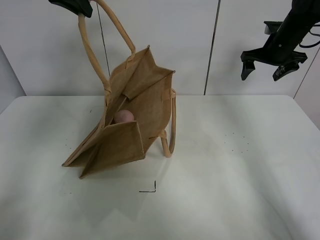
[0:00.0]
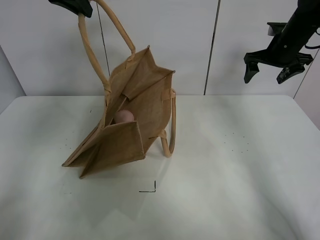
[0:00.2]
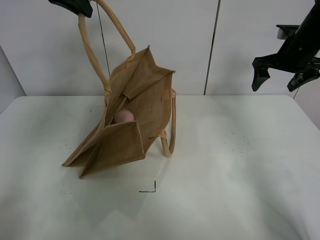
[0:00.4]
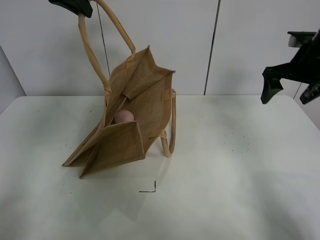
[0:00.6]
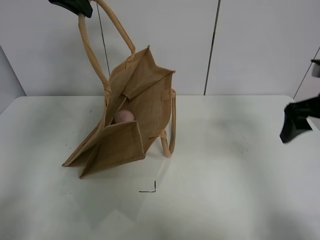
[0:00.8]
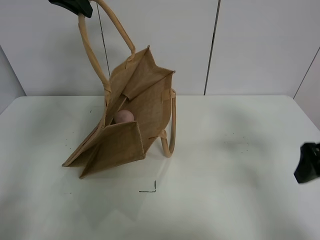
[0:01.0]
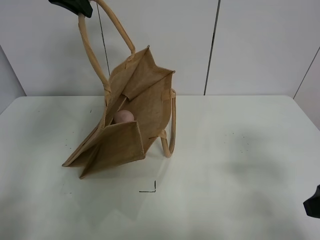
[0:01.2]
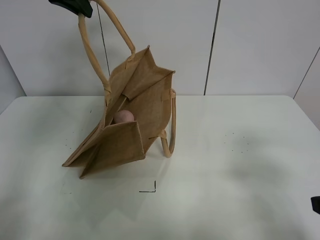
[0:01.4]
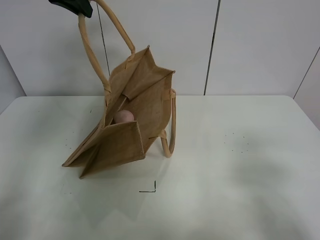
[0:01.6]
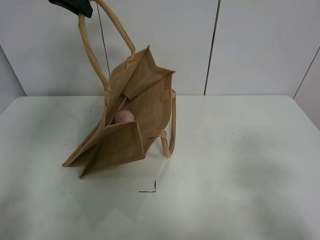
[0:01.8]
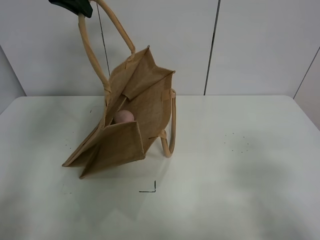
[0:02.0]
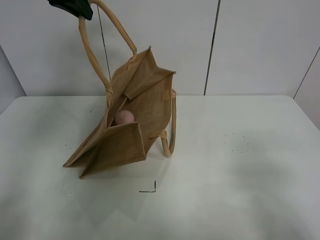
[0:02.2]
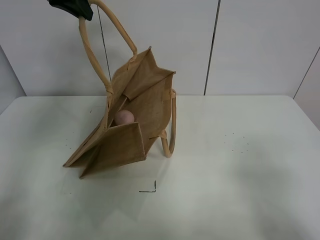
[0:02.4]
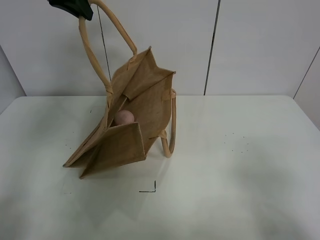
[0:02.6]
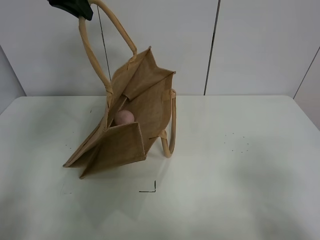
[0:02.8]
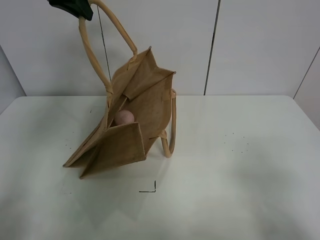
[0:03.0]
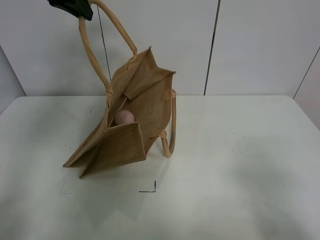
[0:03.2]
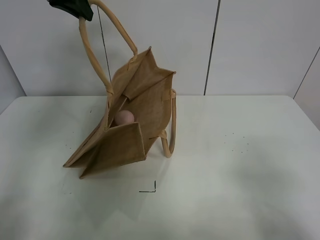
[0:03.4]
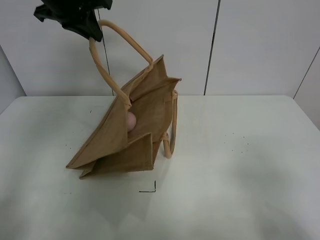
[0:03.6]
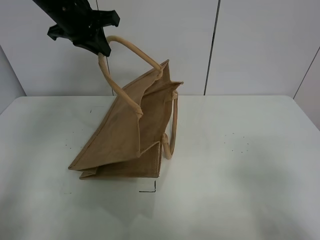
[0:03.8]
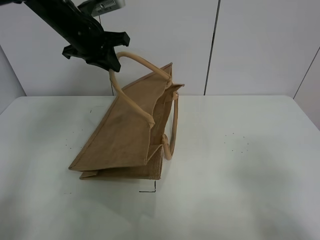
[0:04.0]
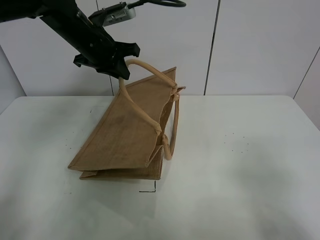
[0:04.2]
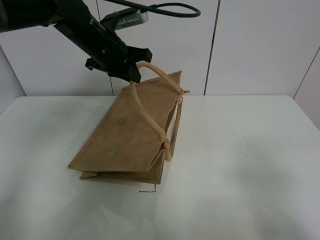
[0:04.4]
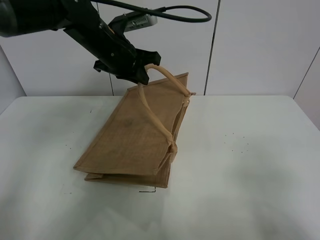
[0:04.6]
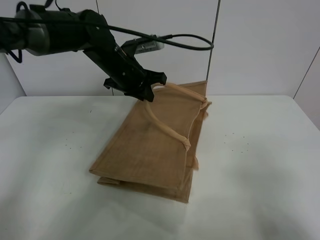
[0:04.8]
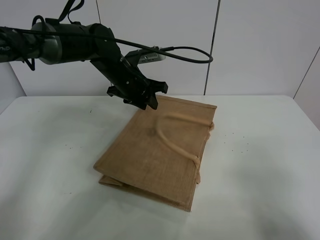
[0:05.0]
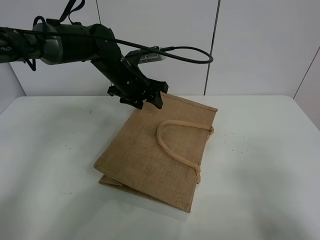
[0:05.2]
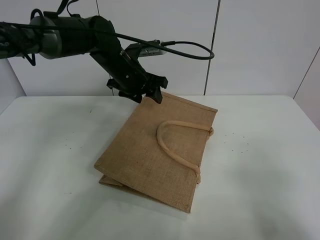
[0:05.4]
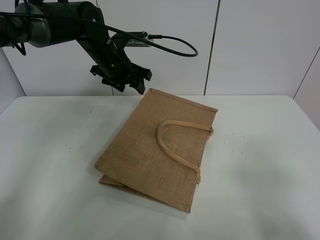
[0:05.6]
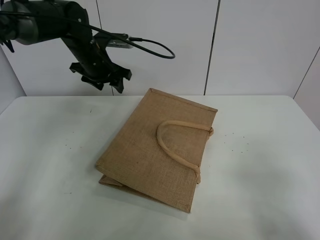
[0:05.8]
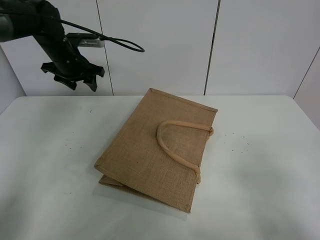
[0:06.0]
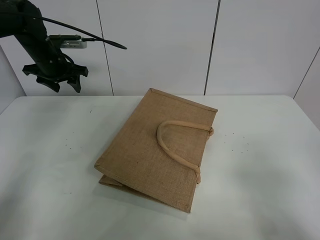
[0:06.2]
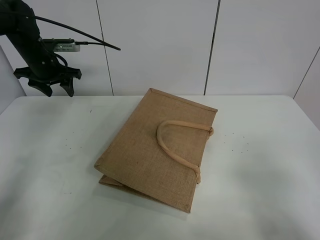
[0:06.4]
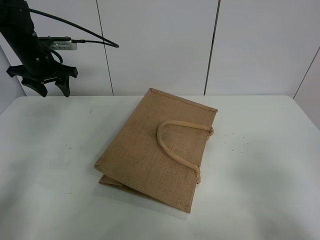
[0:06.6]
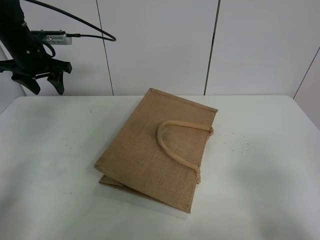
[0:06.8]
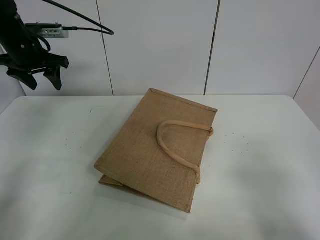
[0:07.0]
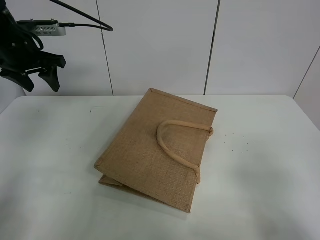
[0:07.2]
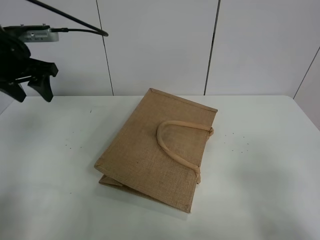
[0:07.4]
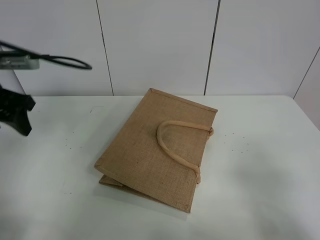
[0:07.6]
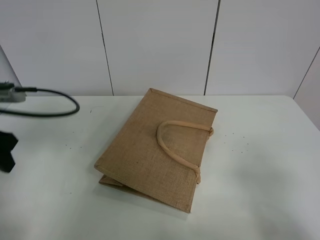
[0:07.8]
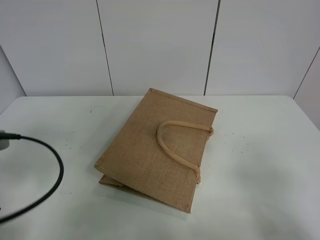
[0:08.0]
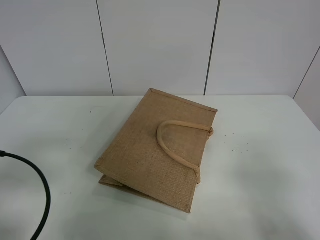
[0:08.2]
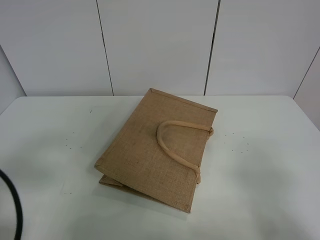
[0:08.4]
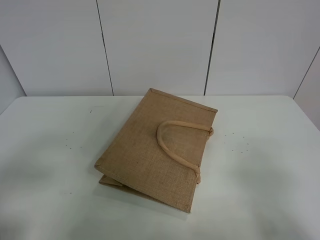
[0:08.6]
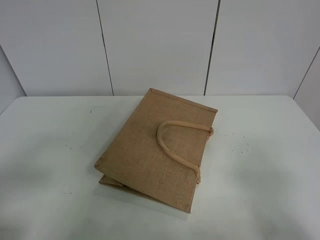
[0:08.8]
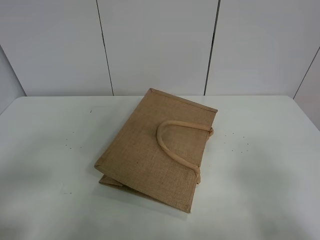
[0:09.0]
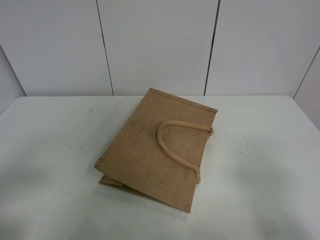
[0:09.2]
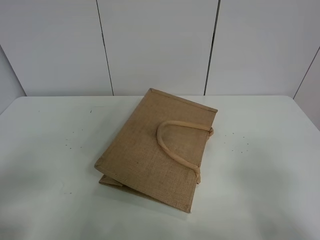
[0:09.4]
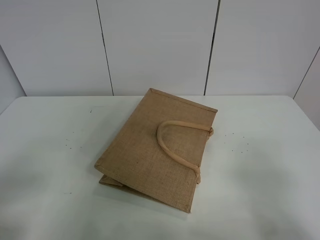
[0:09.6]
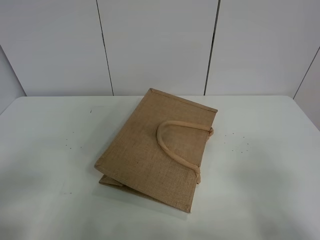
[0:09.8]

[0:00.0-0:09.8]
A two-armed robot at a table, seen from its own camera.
Task of the whole recording: open the brown linen bag and put the peach in the bag.
Step, 0:00.0 to 0:05.6: Put down the handbag with left grippe.
0:00.0 to 0:01.4: The right gripper is displaced backward by approximately 40 cm.
0:02.8 to 0:04.2: The left gripper goes roughly 15 cm downward and to the right.
0:04.2 to 0:05.6: The left gripper goes roughly 5 cm downward, and opens up.
0:05.6 to 0:07.0: The left gripper heads to the left, covering roughly 20 cm.
0:07.0 to 0:08.4: The left gripper goes roughly 35 cm backward.
0:08.4 to 0:09.8: The left gripper shifts approximately 5 cm backward.
